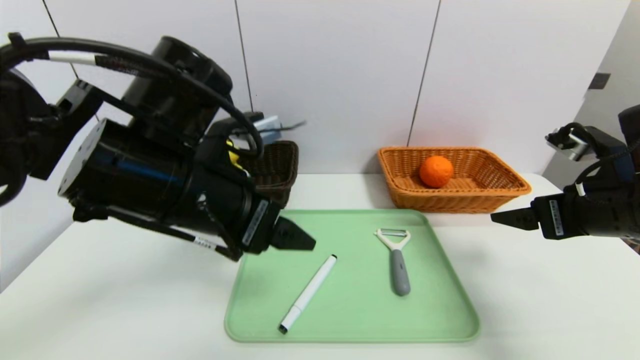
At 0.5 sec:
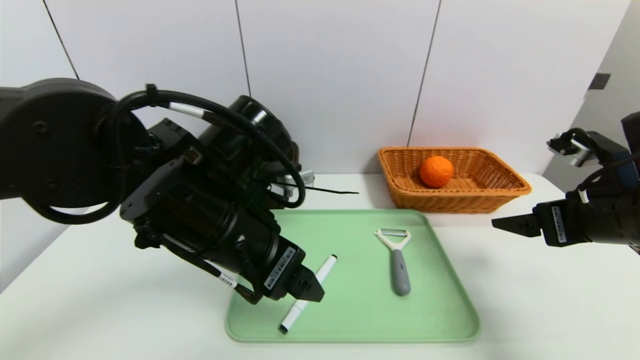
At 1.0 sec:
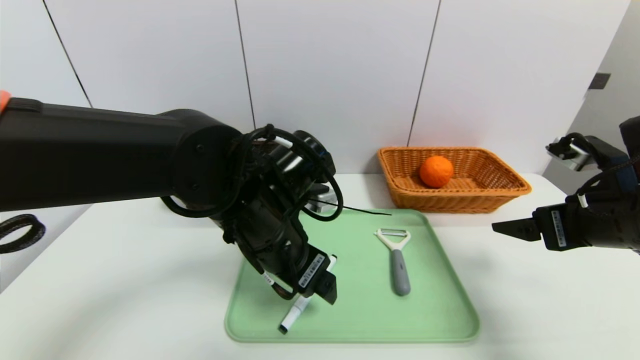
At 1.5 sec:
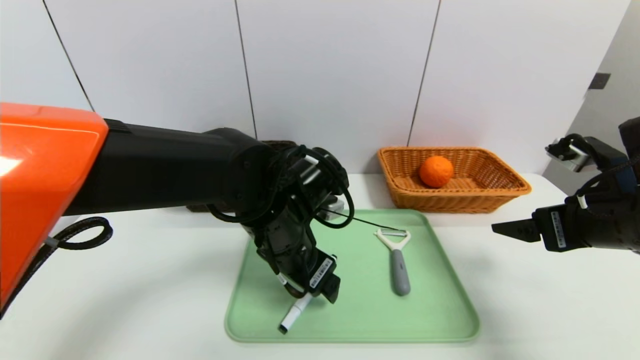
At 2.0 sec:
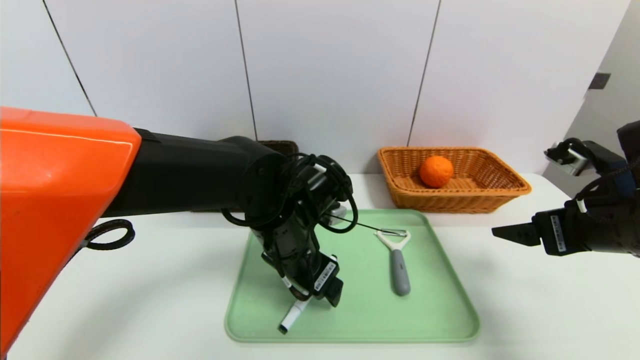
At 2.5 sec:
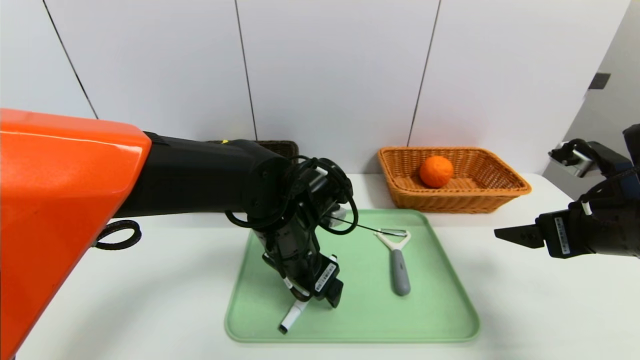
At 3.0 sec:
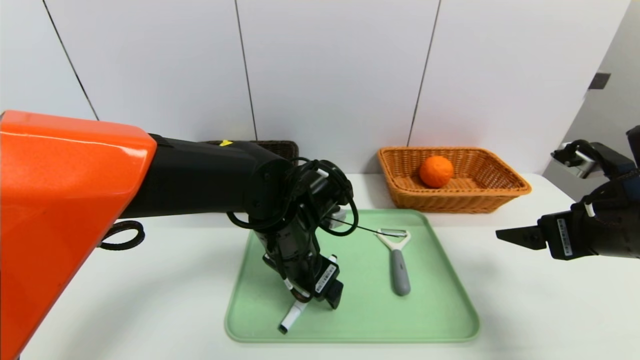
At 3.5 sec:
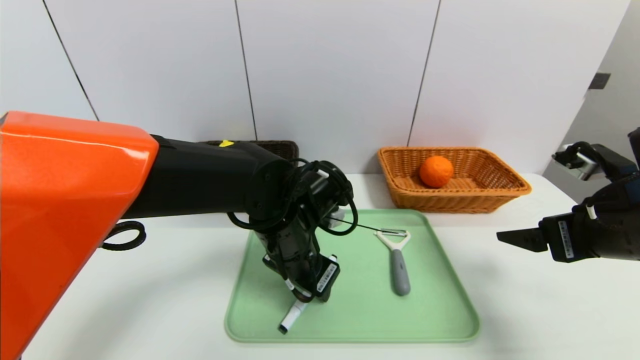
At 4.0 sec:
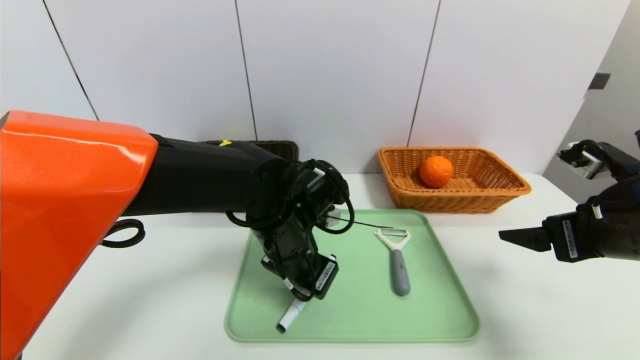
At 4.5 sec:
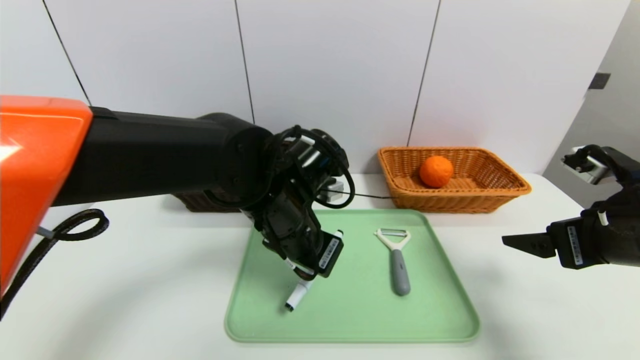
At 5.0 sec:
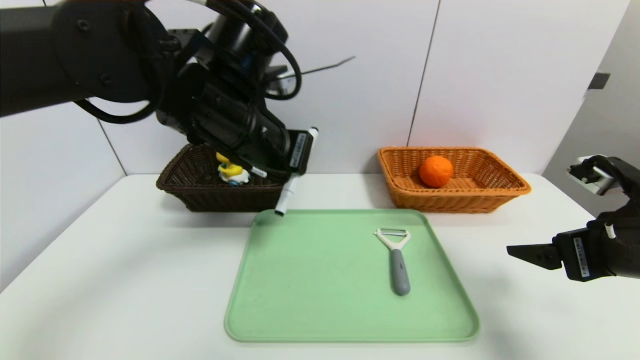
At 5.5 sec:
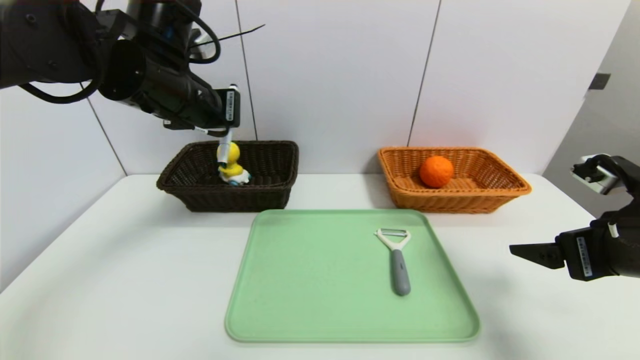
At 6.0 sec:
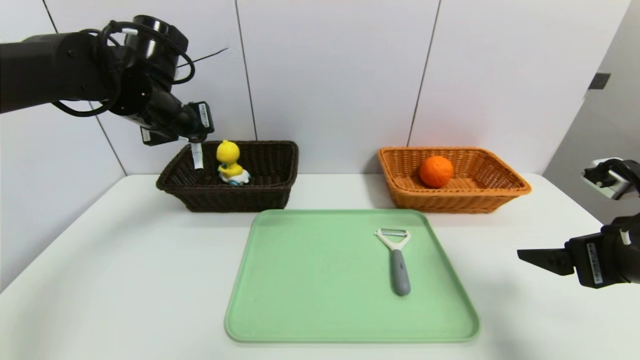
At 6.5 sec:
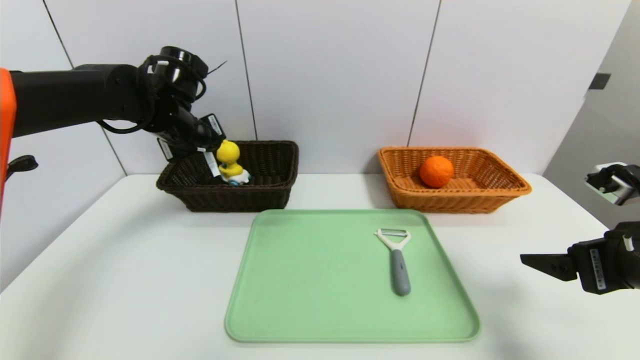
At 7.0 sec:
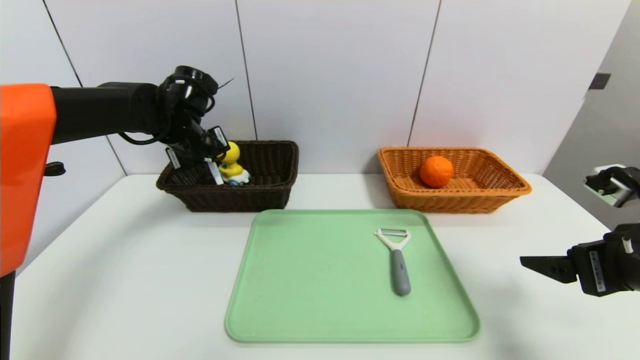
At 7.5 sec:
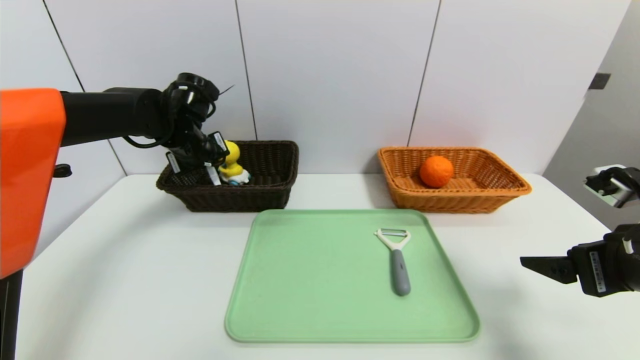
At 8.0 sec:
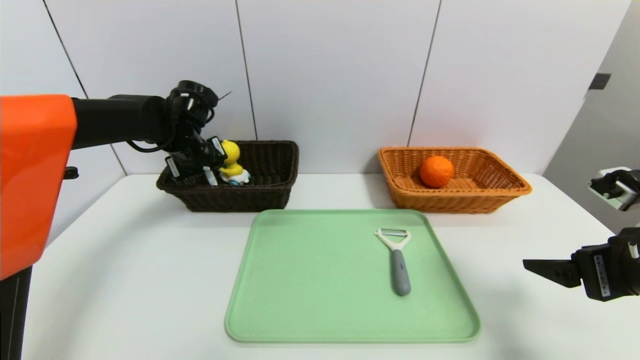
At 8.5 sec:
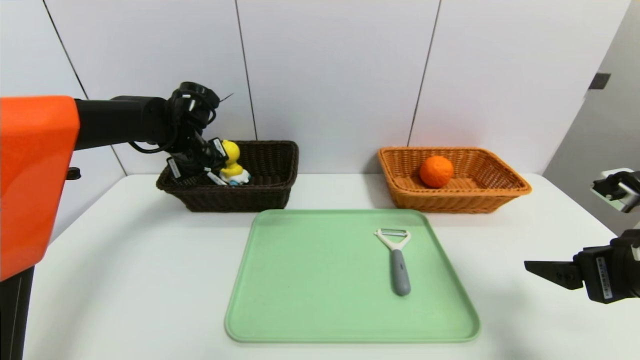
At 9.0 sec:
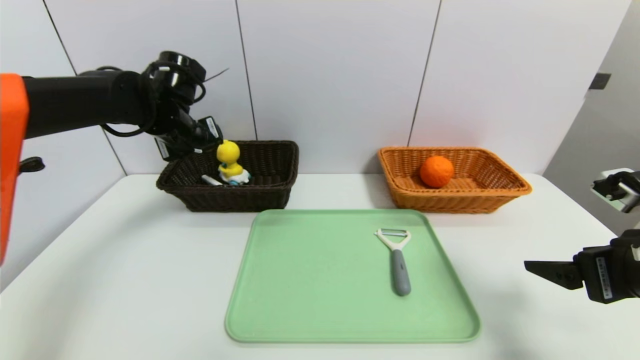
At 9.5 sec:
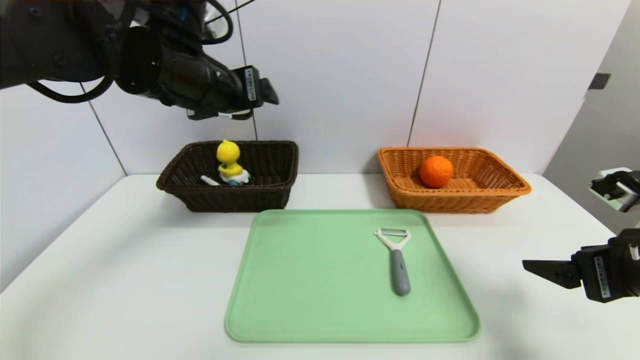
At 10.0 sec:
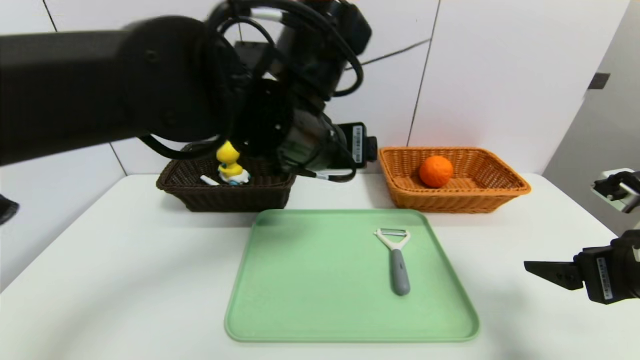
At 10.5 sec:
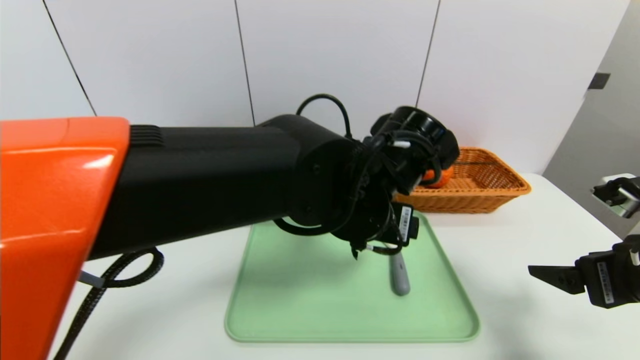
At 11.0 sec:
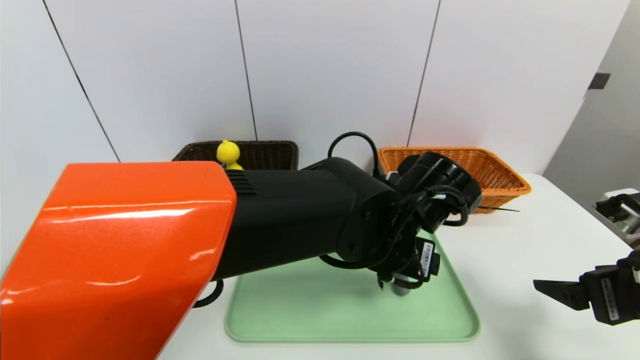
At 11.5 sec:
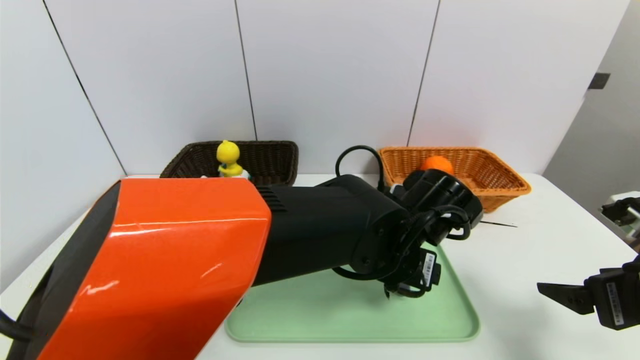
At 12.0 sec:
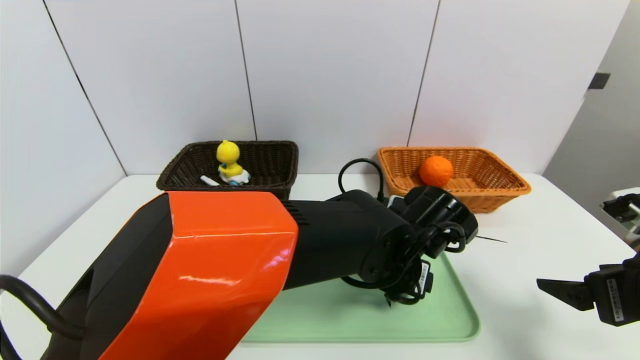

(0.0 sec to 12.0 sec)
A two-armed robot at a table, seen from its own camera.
Task of the whole recording: place the food in the right basket with the right gripper, and place the non food items in the left basket with the left gripper.
Step, 0.0 sec - 8.5 sec: Grasp the pen container and put it in the left basket.
0.0 sec - 2.0 sec: The left gripper travels downward, to the right and forward by about 15 cm.
2.0 sec - 4.0 sec: The left gripper closes up.
4.0 sec - 6.0 sec: The left gripper goes about 25 cm to the left, upward and forward.
6.0 sec - 8.0 sec: The left gripper travels downward and forward by about 10 cm.
8.0 sec - 10.0 sec: The left gripper moves to the right, backward and upward, roughly 30 cm, and opens up.
10.0 sec - 12.0 sec: The left gripper is displaced downward and to the right by approximately 20 cm.

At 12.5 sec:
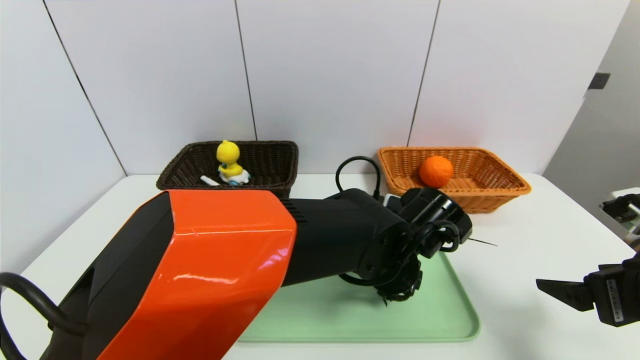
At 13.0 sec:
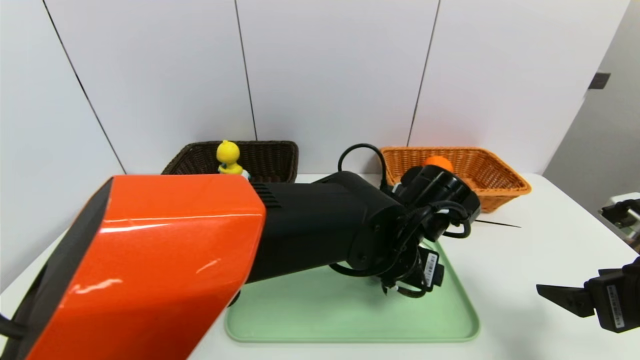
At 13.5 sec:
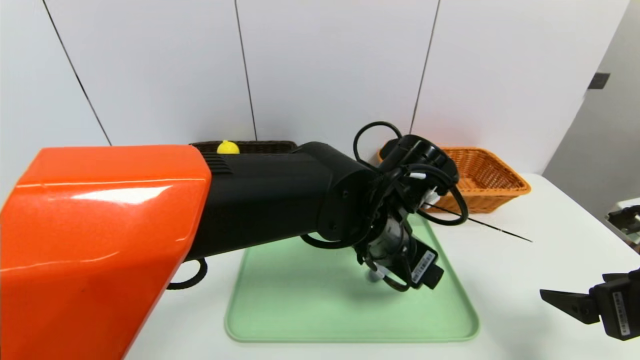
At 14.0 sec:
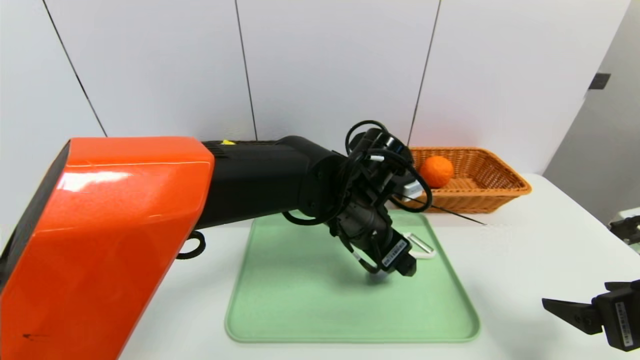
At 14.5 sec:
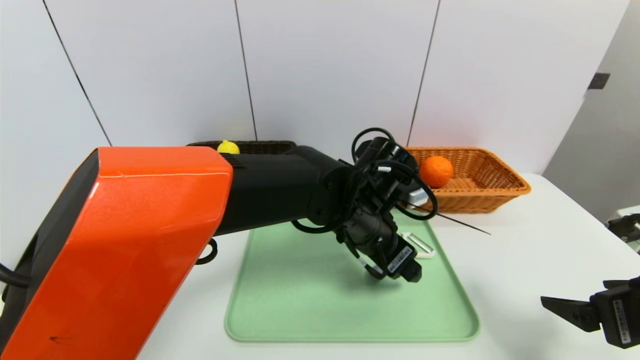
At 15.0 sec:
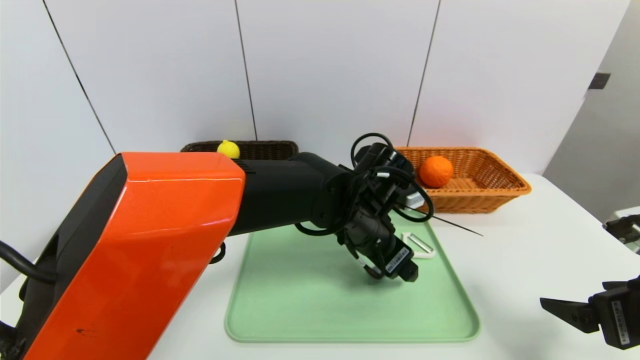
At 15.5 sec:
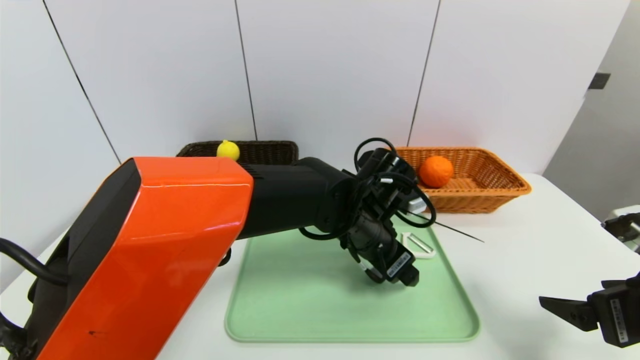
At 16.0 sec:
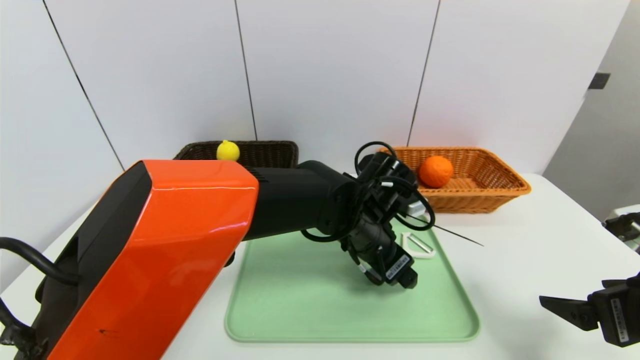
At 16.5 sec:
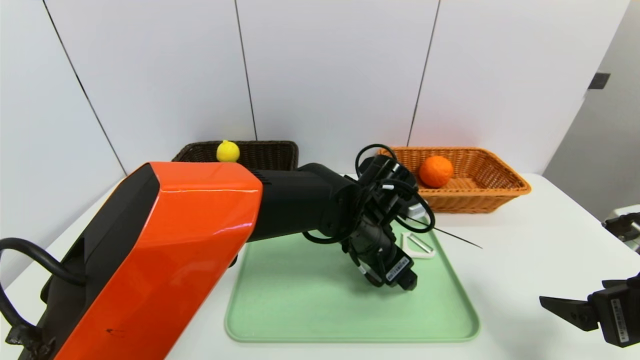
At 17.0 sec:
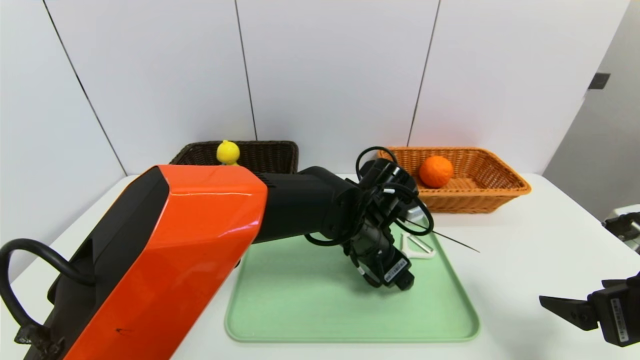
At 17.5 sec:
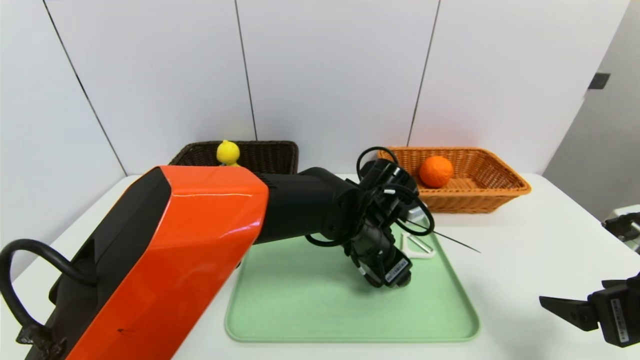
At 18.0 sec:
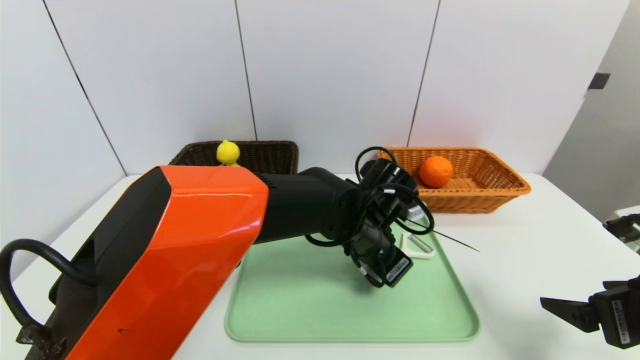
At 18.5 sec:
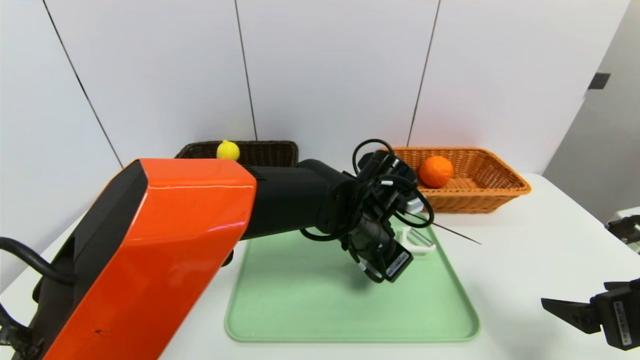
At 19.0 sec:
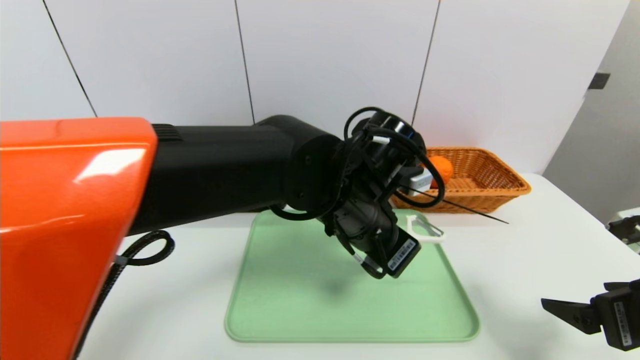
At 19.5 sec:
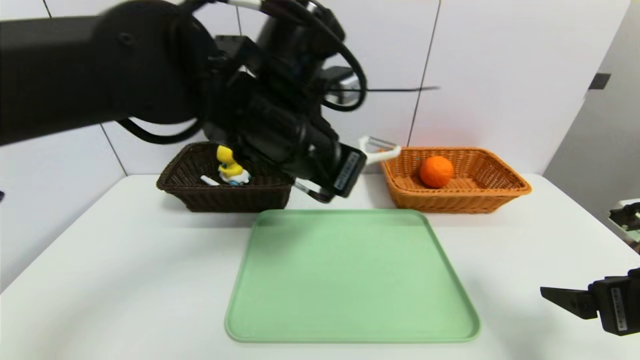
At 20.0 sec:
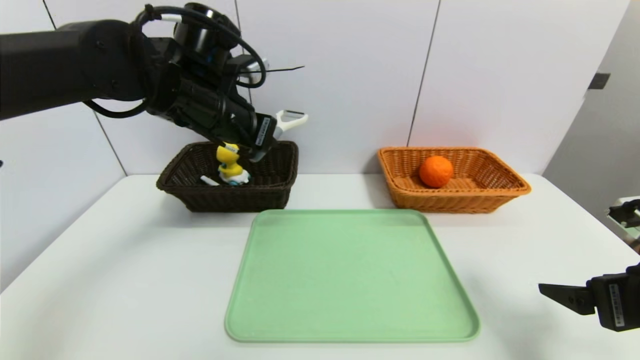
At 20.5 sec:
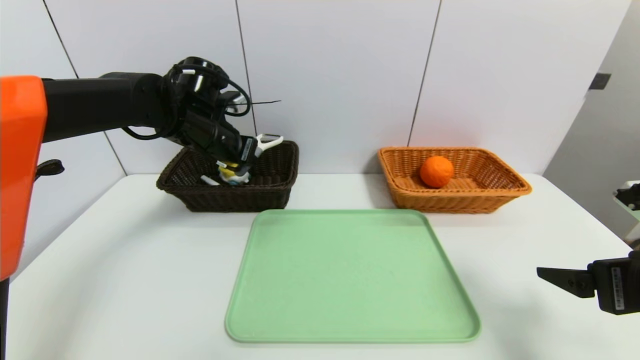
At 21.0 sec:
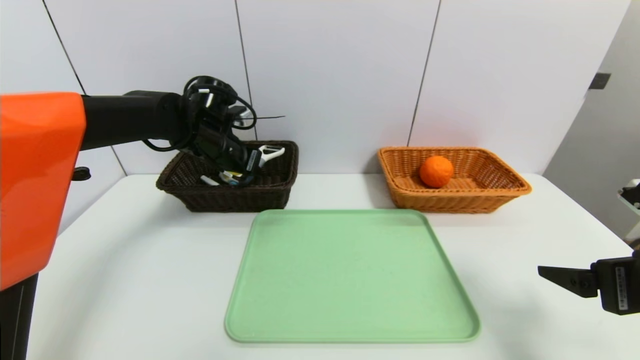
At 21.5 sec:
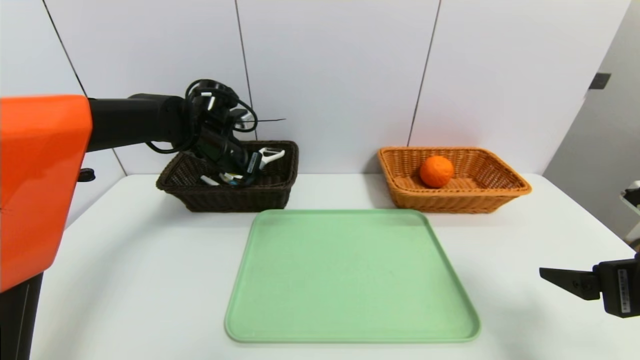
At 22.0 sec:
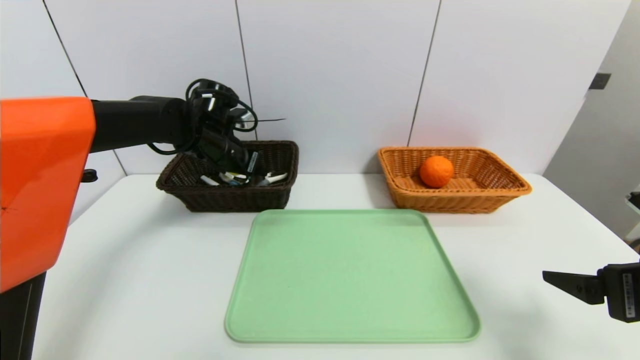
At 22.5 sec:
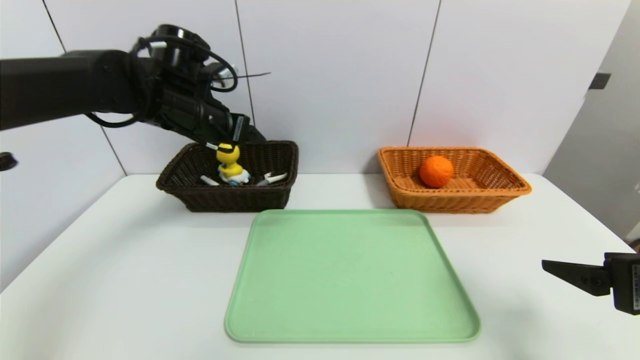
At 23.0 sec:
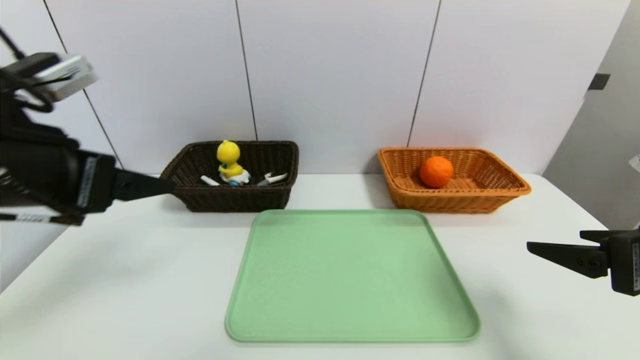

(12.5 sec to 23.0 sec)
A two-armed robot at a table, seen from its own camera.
Task of the whole recording: place the food in the right basket with the right gripper, and place the non food items in the left basket with the left gripper.
Step, 12.5 sec - 22.0 sec: Grasp the peeler and put it in the left basket.
12.5 sec - 14.5 sec: The left gripper moves about 5 cm.
14.5 sec - 16.5 sec: The grippers move only a little.
16.5 sec - 19.0 sec: The left gripper goes approximately 5 cm upward, and closes its fingers.
19.0 sec - 21.0 sec: The left gripper moves to the left and forward, roughly 25 cm.
21.0 sec - 23.0 sec: The left gripper heads backward, covering some 25 cm, and opens up.
